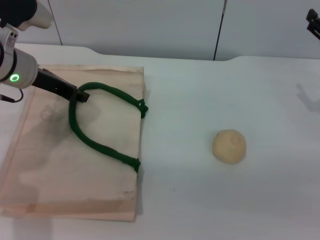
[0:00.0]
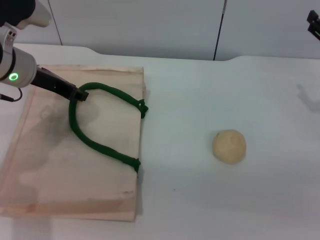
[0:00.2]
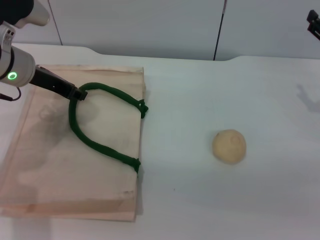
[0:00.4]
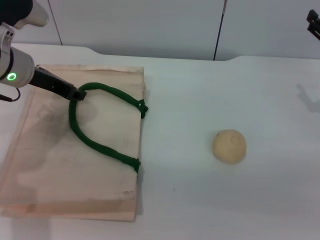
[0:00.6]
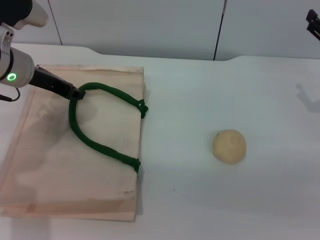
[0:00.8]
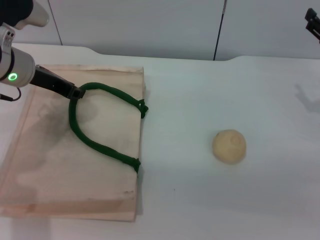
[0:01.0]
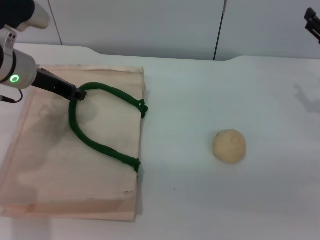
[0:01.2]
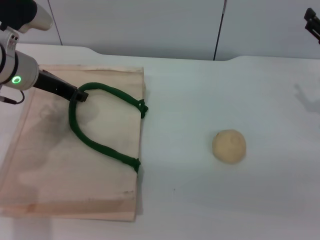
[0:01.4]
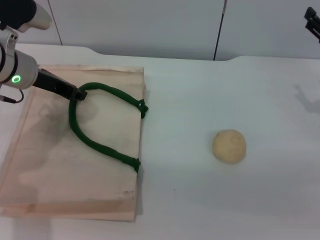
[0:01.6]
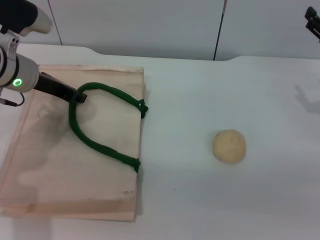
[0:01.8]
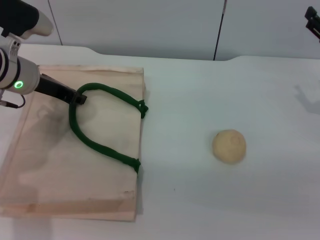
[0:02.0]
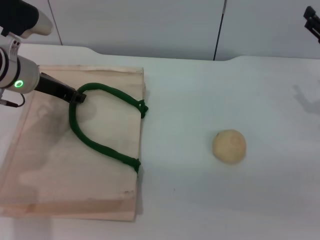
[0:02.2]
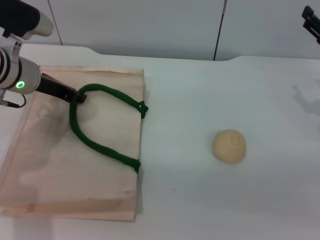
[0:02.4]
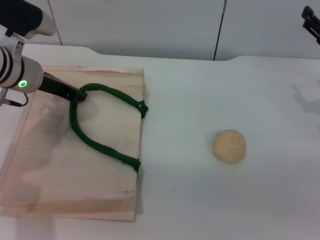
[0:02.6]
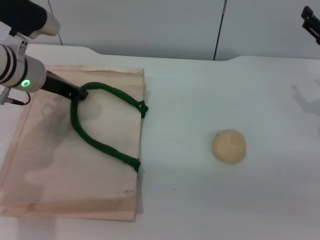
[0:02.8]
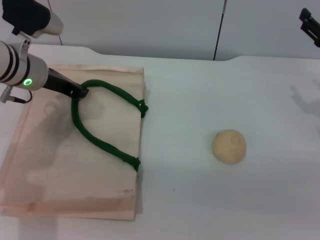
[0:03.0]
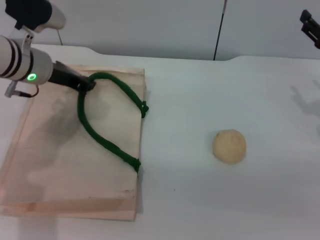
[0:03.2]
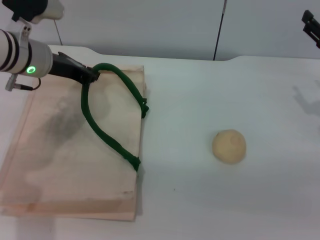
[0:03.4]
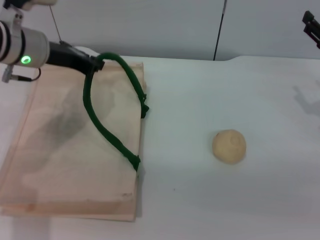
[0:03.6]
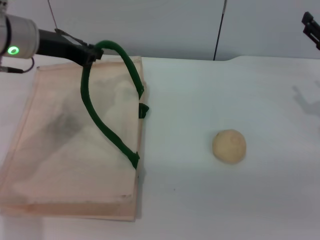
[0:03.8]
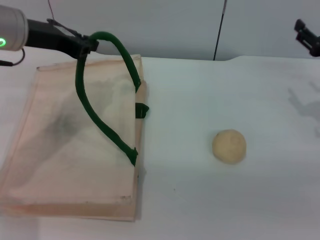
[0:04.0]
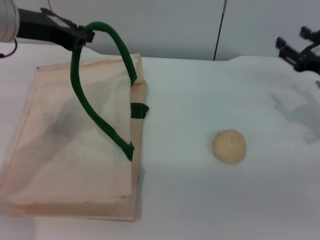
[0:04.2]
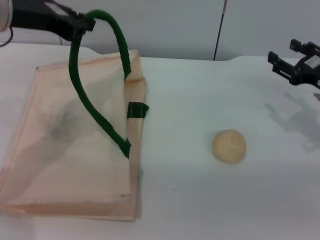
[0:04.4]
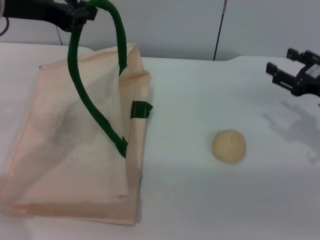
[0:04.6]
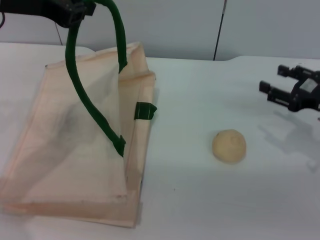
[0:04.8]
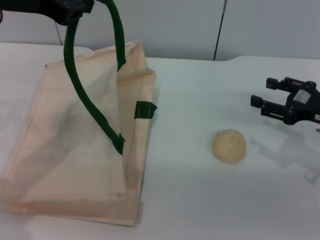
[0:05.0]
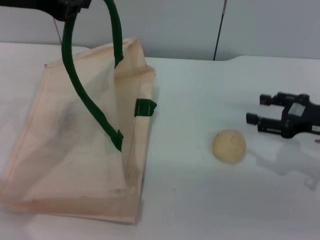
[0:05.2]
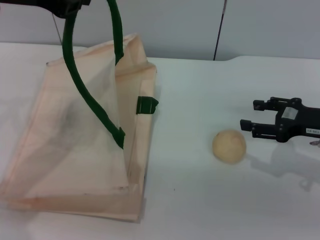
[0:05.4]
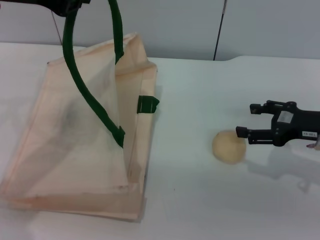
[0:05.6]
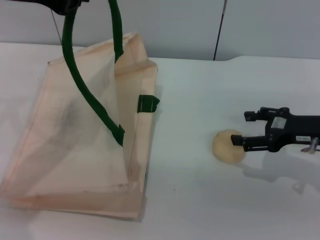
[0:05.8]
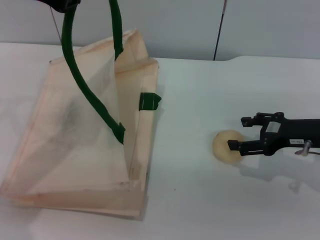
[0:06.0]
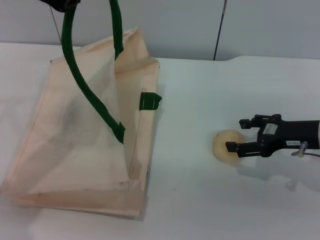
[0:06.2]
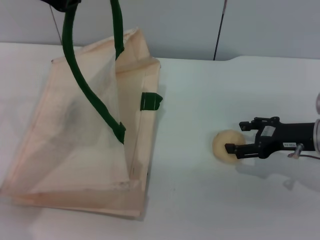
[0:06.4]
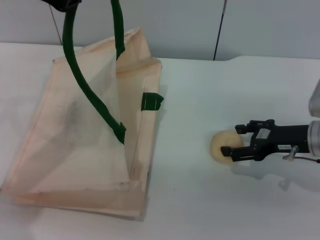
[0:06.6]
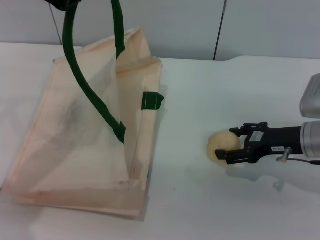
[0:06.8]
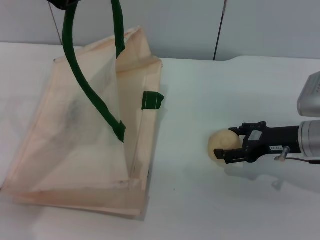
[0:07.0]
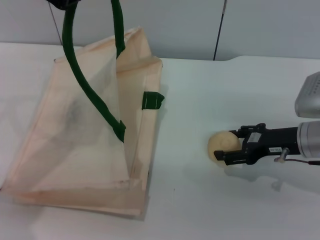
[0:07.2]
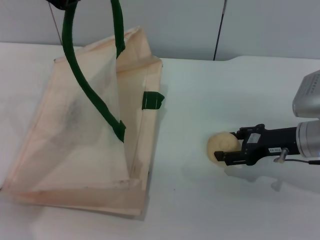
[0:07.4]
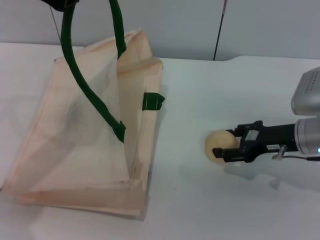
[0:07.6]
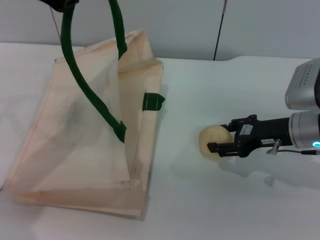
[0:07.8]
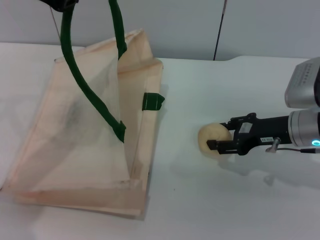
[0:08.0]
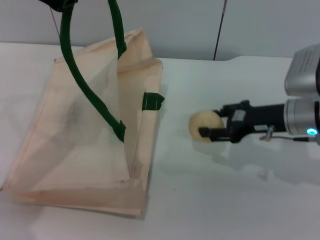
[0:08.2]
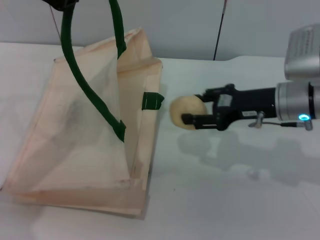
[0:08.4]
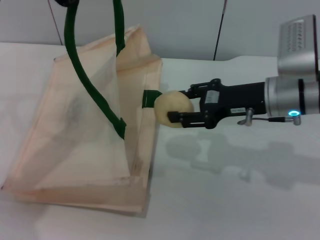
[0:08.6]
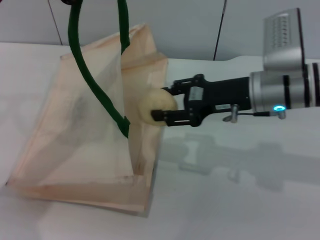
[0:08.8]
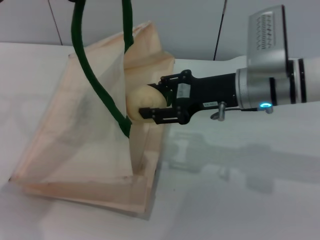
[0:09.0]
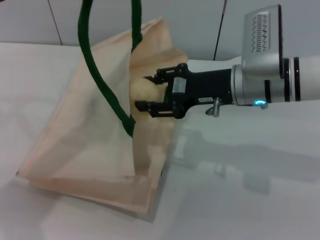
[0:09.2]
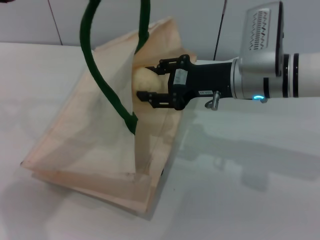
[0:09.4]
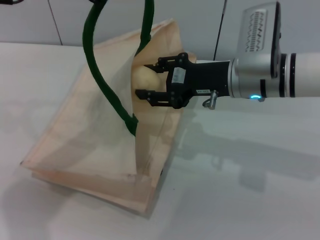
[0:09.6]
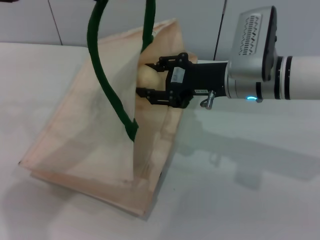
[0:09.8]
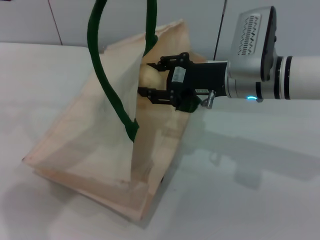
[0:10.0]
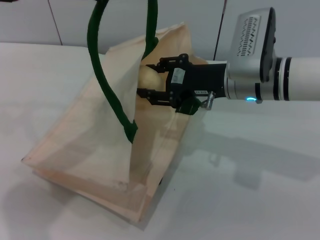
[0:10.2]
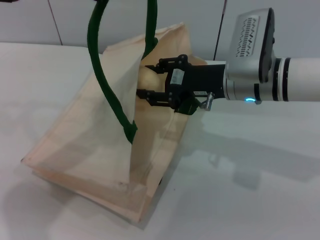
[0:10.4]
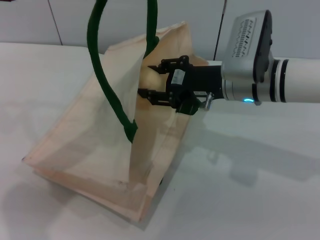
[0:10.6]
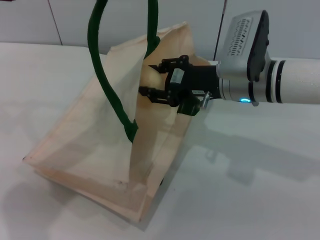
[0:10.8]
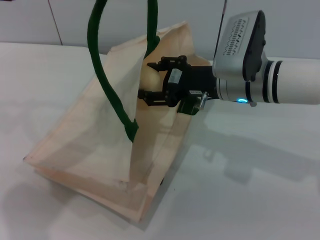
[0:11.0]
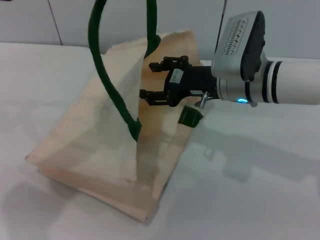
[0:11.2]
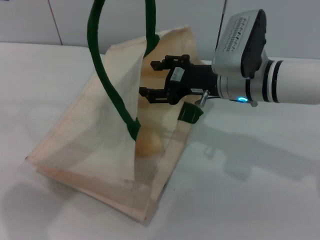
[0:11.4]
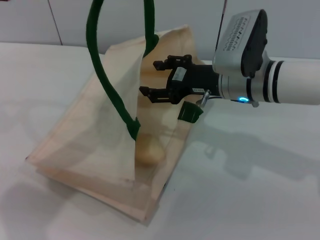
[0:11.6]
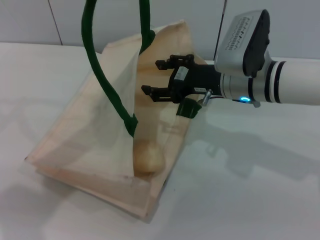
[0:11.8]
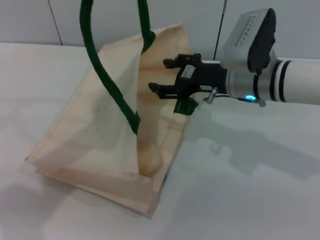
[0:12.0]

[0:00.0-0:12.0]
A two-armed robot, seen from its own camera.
Task of the whole recording: pick up the egg yolk pastry from the table and place it in the white handbag.
Step, 0:00.0 to 0:04.4: Lift the woven bag with the left gripper to open it.
Step, 0:04.6 to 0:08.2: Pick up the egg yolk pastry with the right gripper.
Step, 0:08.4 to 0:11.4: Place the egg yolk pastry into the woven bag with the right gripper.
0:00.0 to 0:01.6: The two grippers keep their place.
0:01.6 to 0:03.0: The left gripper closes up.
0:03.0 to 0:04.4: The left gripper shifts some 10 cm upward.
0:04.4 to 0:06.0: The right gripper opens its fingers.
0:06.0 to 0:07.6: The right gripper closes up.
0:07.6 to 0:09.0: The right gripper shifts approximately 10 cm to the left and upward, and closes.
0:10.4 to 0:12.0: The right gripper opens. Meanwhile the left gripper opens up.

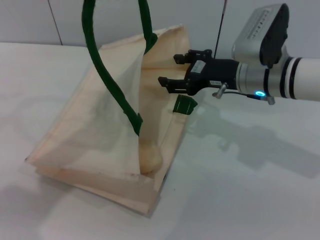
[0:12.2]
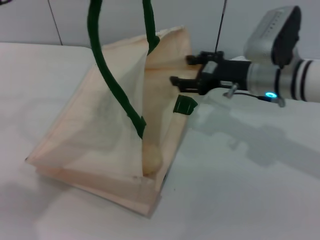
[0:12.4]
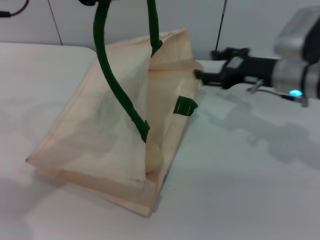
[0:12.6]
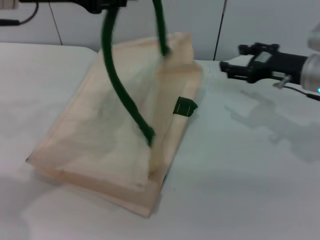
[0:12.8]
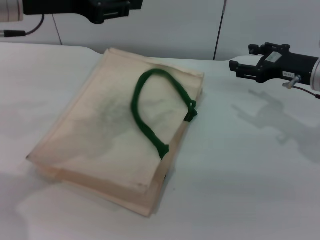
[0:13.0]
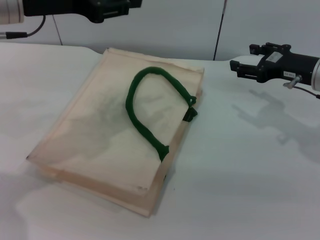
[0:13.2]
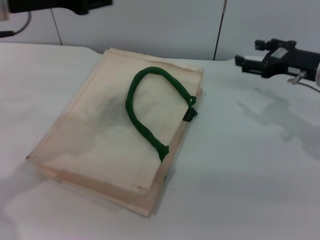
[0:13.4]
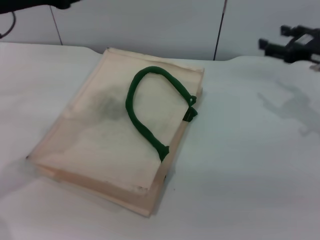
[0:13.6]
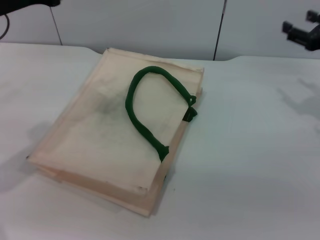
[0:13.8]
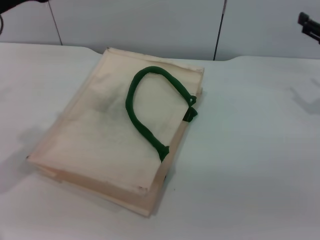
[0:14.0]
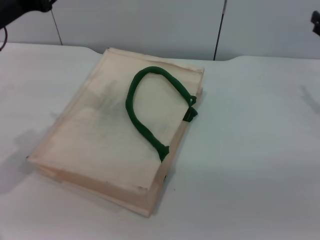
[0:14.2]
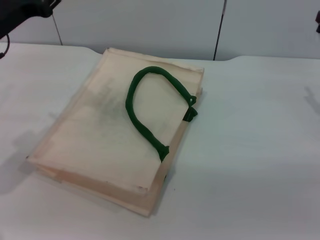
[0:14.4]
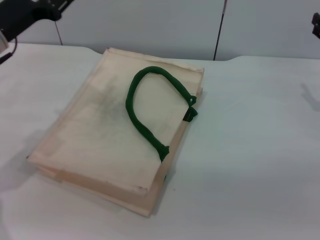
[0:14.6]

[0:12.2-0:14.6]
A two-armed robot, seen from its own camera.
Task of the whole recording: pick up the egg yolk pastry from the table and place it in the white handbag.
Step, 0:12.2 to 0:13.4: Lower the woven bag with the left gripper to close it.
0:12.2 to 0:13.4: The right gripper goes approximately 10 cm to the right. The left gripper heads downward, covering some 5 cm, and opens its fingers.
0:13.4 to 0:14.6: The right gripper is displaced to the right by approximately 5 cm; the left gripper shifts about 10 cm downward.
